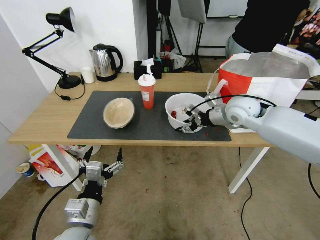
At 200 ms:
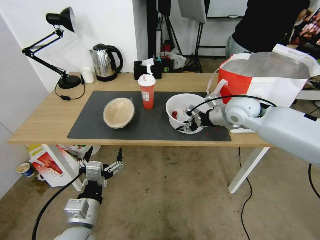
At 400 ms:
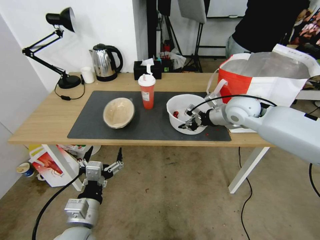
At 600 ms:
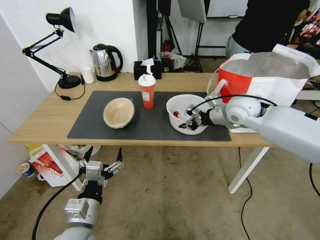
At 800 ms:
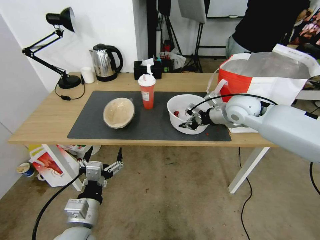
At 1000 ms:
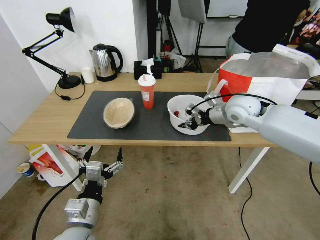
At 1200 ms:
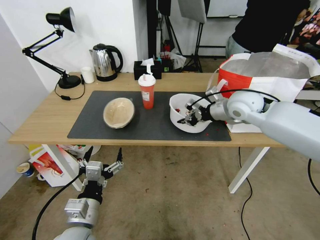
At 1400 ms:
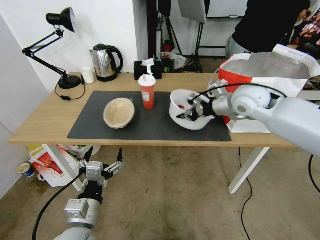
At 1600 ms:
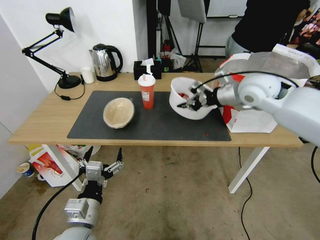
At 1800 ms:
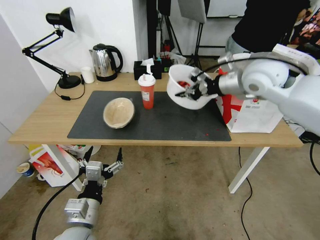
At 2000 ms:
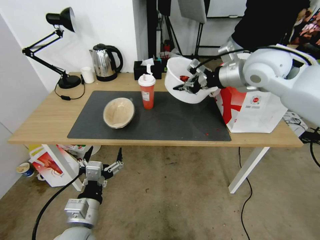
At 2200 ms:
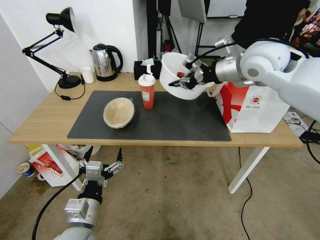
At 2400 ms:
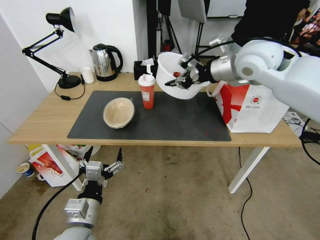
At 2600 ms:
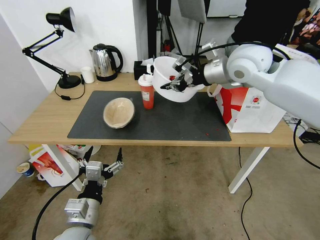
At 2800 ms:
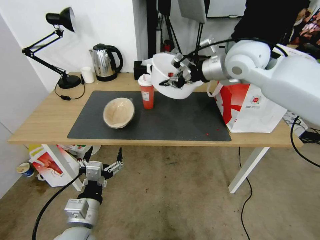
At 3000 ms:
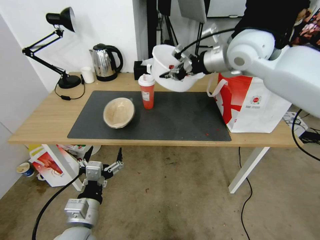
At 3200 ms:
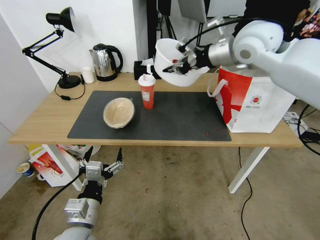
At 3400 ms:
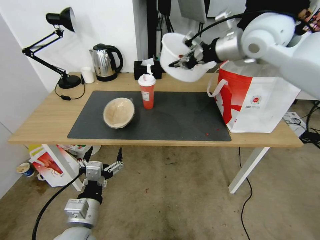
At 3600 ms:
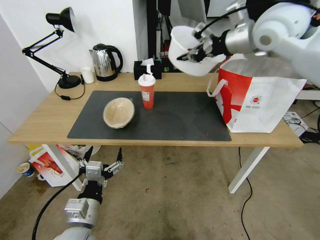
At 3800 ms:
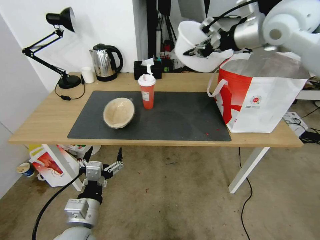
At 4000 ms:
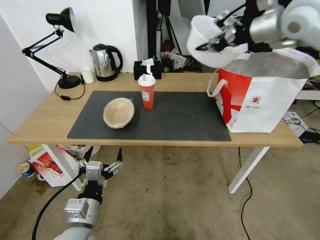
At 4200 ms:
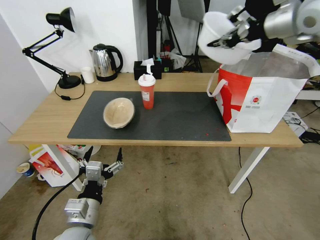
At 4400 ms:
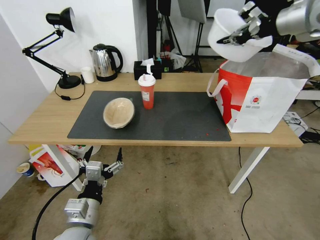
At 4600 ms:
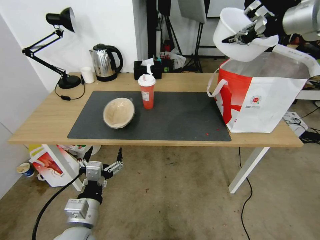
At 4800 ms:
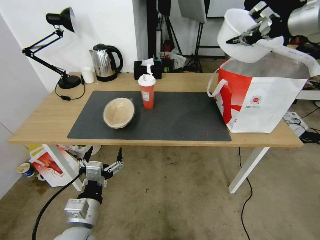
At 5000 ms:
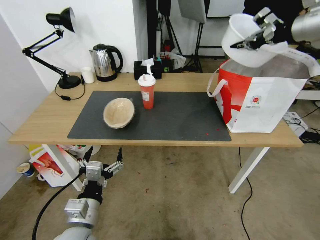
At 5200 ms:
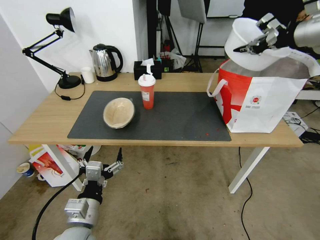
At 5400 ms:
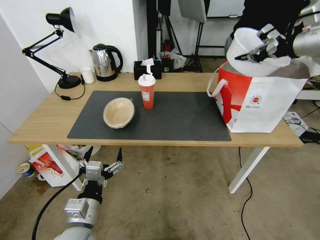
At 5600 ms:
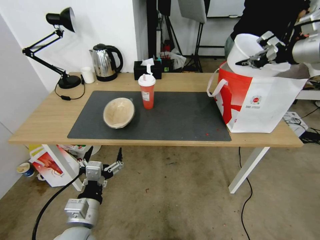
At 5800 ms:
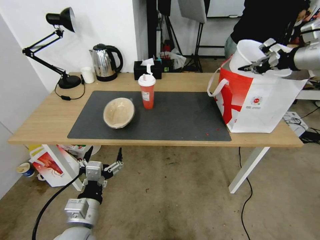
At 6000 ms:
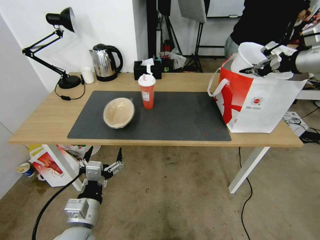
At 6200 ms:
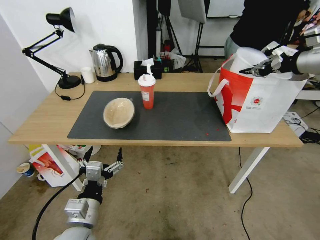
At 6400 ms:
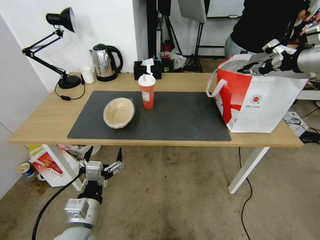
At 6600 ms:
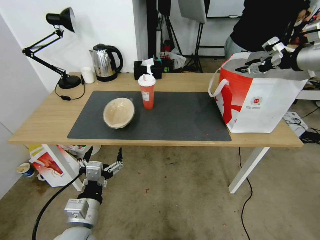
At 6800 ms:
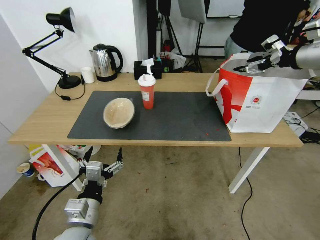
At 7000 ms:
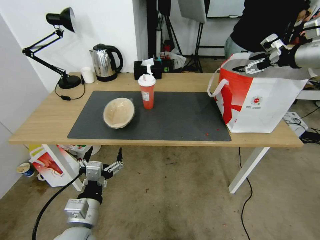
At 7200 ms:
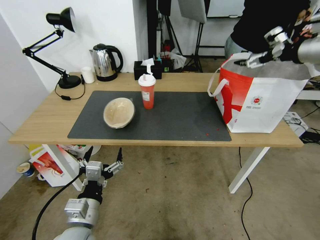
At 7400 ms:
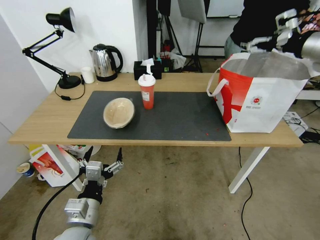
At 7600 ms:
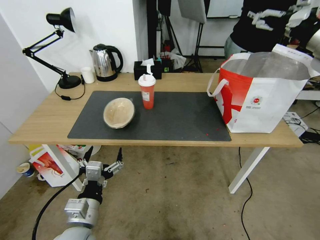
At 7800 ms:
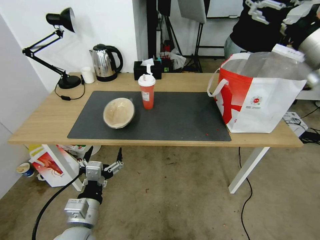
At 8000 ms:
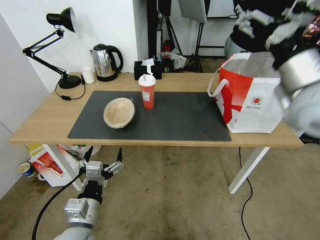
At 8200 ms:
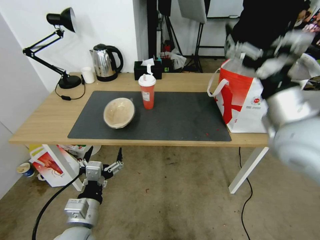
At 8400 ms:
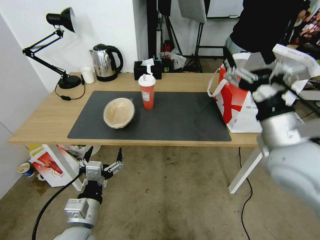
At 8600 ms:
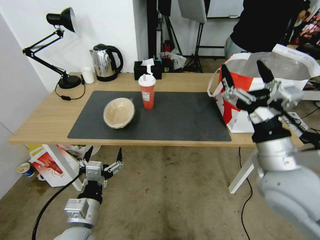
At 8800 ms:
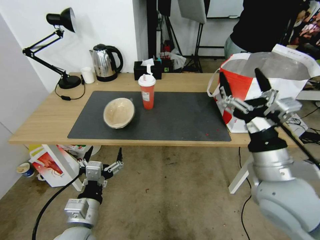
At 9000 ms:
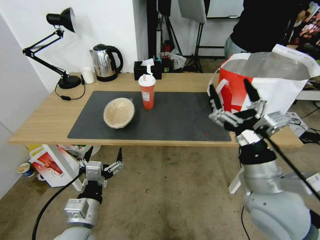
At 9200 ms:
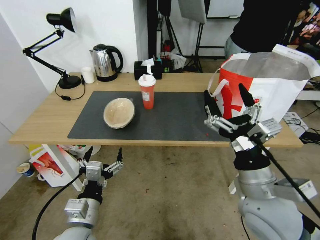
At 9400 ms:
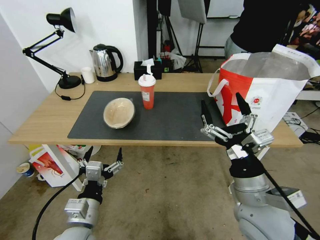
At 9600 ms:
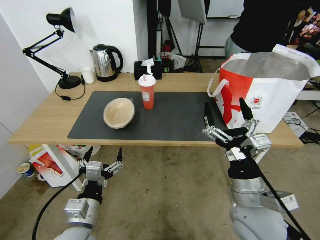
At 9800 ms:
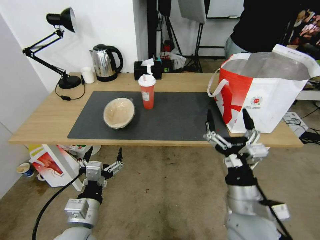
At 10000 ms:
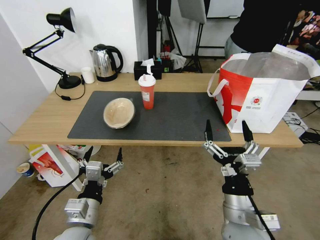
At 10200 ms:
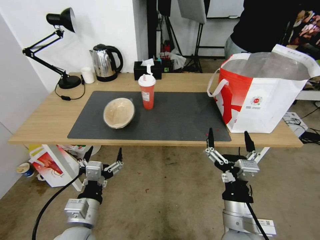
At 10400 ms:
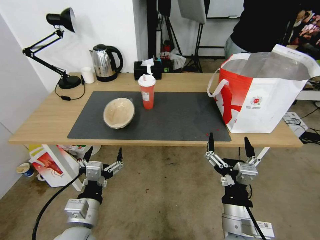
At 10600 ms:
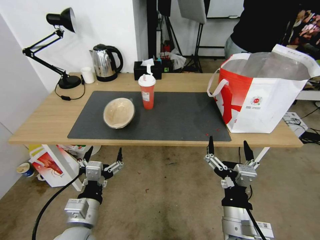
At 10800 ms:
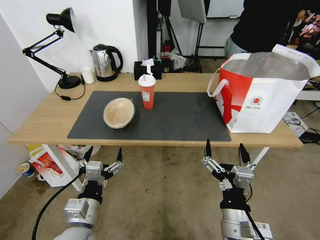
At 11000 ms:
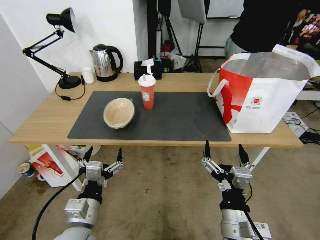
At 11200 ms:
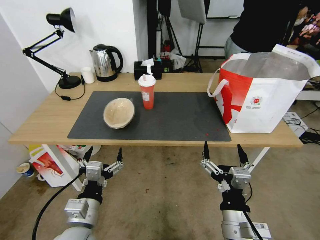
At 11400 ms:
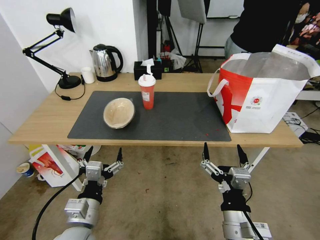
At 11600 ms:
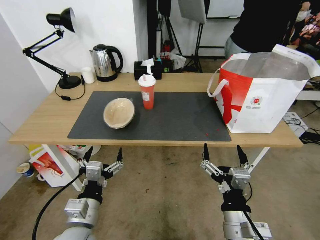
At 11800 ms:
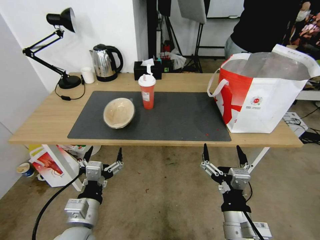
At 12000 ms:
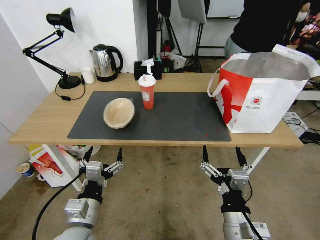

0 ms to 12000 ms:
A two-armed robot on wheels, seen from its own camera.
Task of the whole recording: Pick up the trash from the table and place it into the takeout bag.
0 ms to 1600 ms: The right gripper is displaced upward by roughly 10 cm, and closes its fingers.
1600 ms to 3000 ms: The right gripper heads upward and to the left, covering some 10 cm.
3000 ms to 4400 ms: The right gripper moves to the right and upward, approximately 20 cm.
4400 ms to 6000 ms: The right gripper moves downward and to the right, roughly 10 cm.
6000 ms to 7600 ms: The right gripper heads backward, covering some 5 cm, and opens up.
7600 ms to 9000 ms: The right gripper is displaced downward, backward and to the left by approximately 35 cm.
9000 ms to 10400 ms: The right gripper is displaced downward, backward and to the left by roughly 15 cm.
10400 ms to 12000 ms: The grippers stay close to where they were, moving slightly.

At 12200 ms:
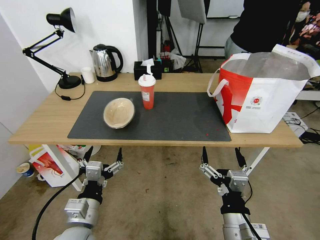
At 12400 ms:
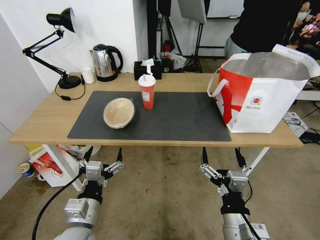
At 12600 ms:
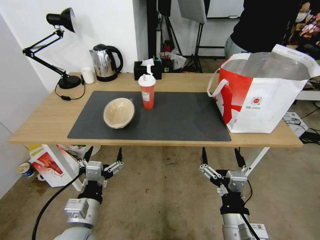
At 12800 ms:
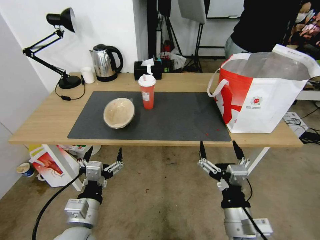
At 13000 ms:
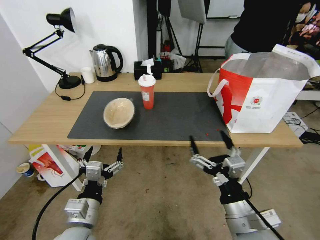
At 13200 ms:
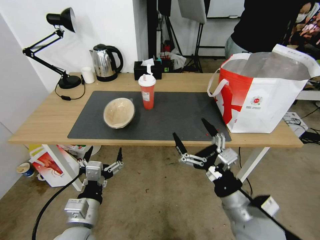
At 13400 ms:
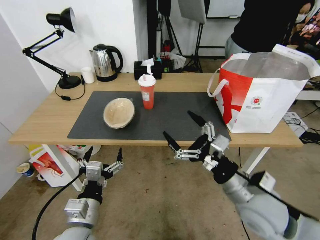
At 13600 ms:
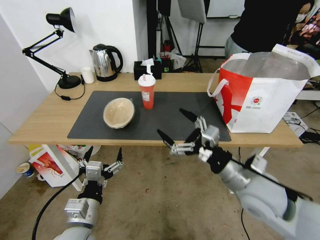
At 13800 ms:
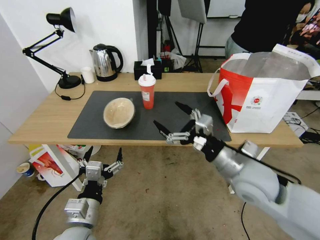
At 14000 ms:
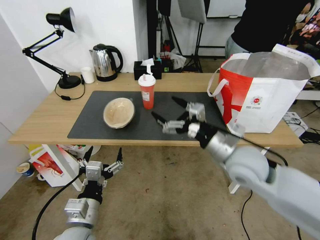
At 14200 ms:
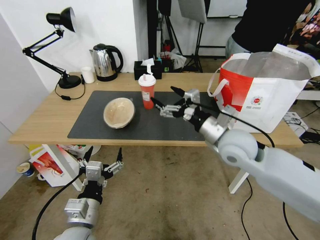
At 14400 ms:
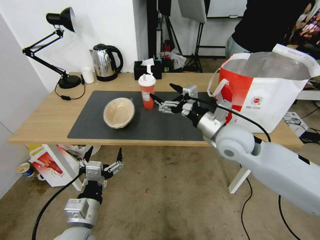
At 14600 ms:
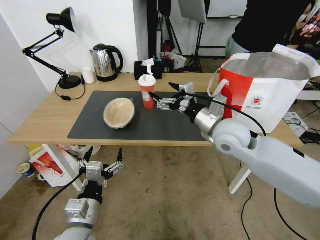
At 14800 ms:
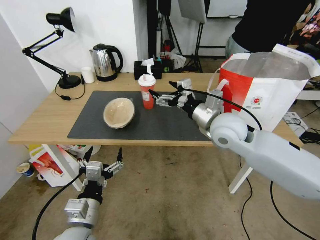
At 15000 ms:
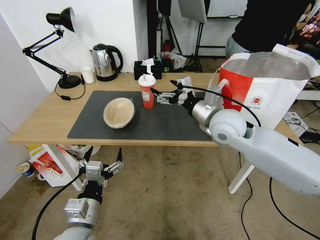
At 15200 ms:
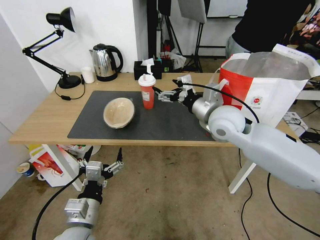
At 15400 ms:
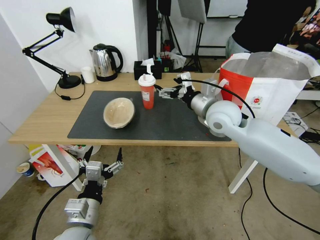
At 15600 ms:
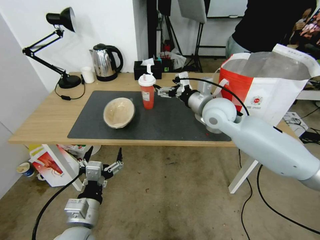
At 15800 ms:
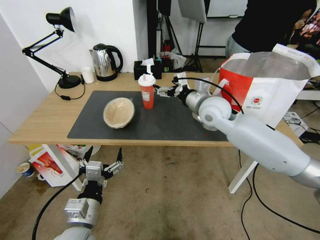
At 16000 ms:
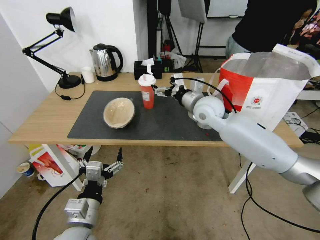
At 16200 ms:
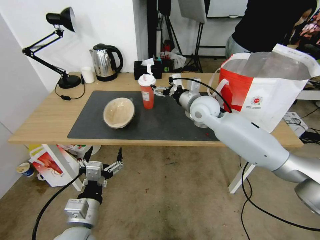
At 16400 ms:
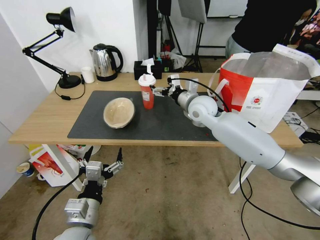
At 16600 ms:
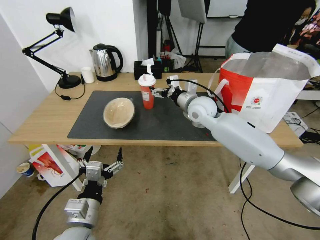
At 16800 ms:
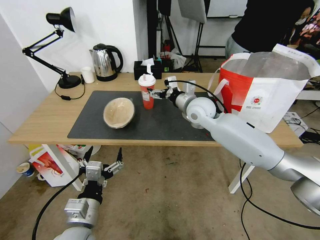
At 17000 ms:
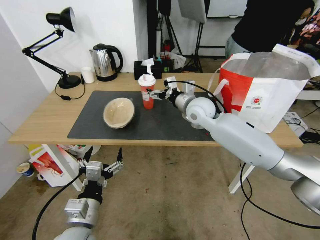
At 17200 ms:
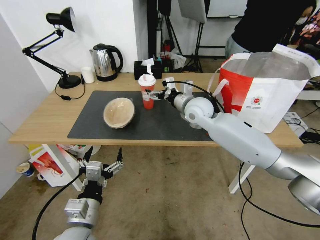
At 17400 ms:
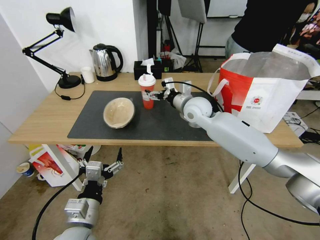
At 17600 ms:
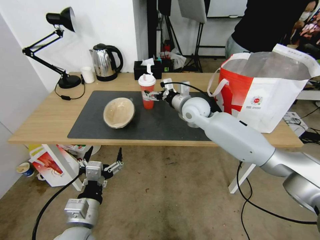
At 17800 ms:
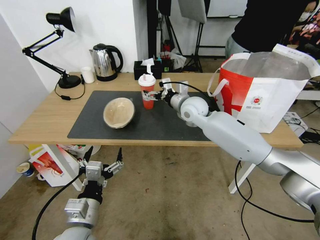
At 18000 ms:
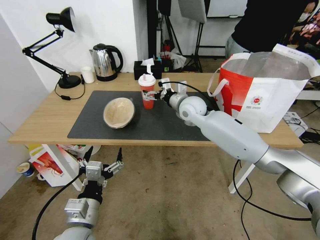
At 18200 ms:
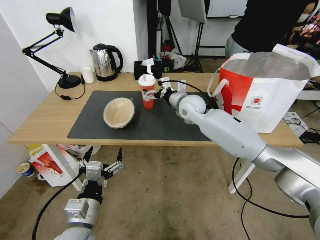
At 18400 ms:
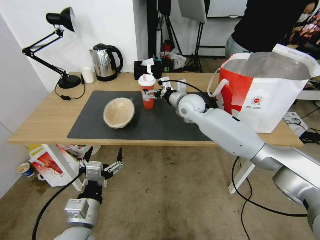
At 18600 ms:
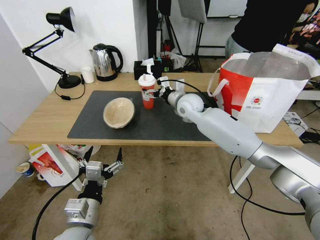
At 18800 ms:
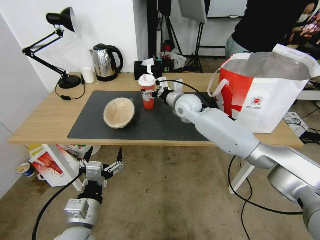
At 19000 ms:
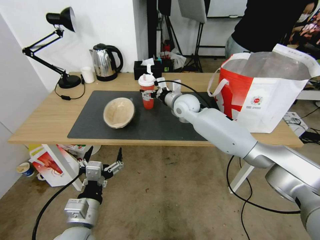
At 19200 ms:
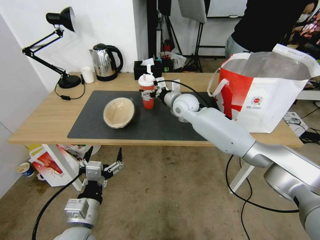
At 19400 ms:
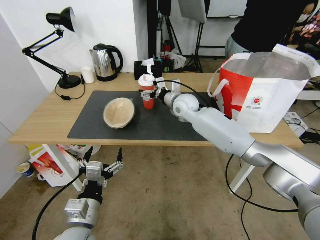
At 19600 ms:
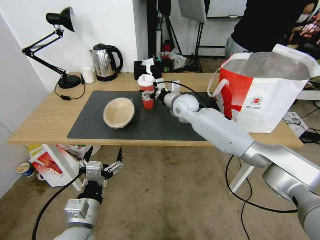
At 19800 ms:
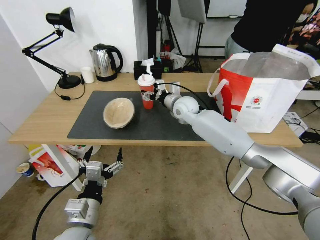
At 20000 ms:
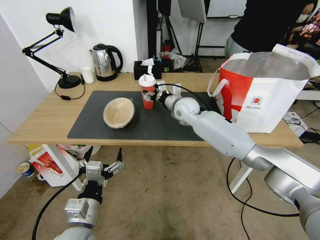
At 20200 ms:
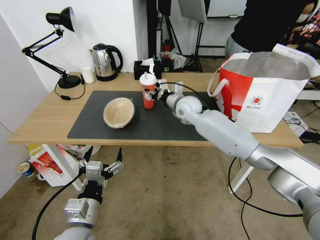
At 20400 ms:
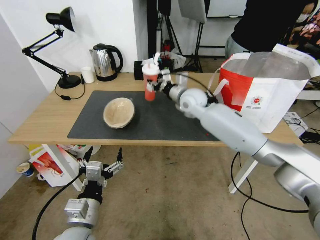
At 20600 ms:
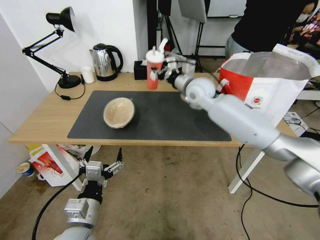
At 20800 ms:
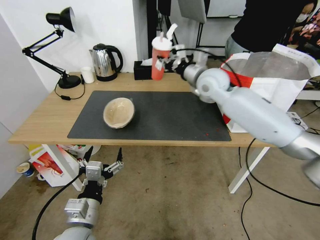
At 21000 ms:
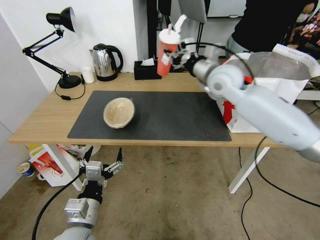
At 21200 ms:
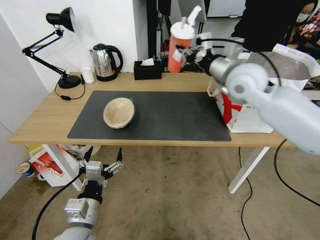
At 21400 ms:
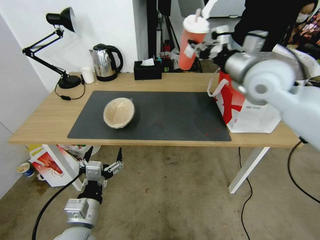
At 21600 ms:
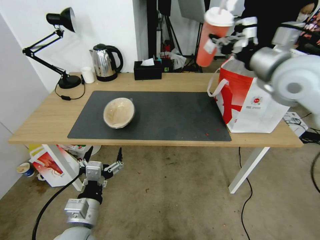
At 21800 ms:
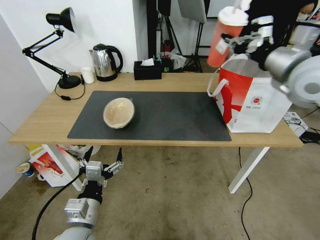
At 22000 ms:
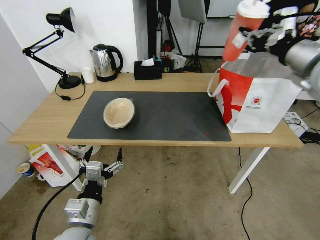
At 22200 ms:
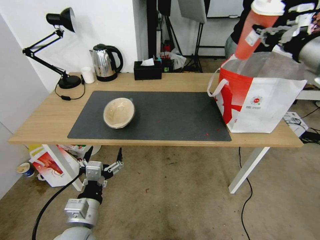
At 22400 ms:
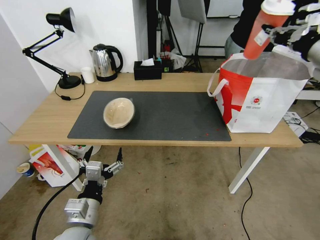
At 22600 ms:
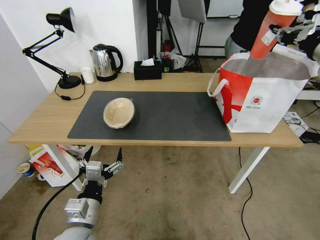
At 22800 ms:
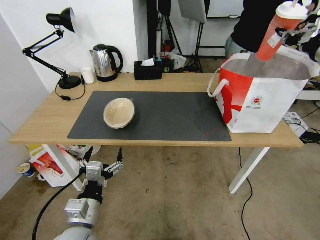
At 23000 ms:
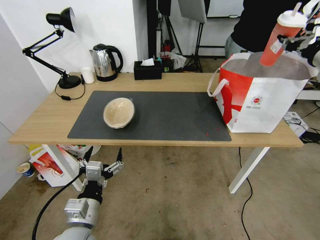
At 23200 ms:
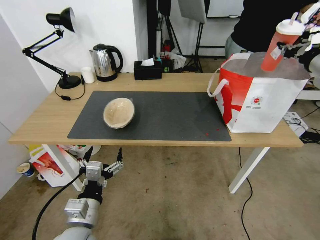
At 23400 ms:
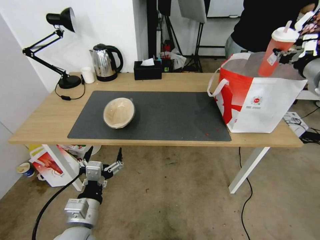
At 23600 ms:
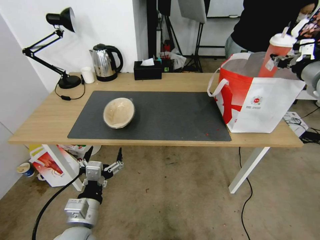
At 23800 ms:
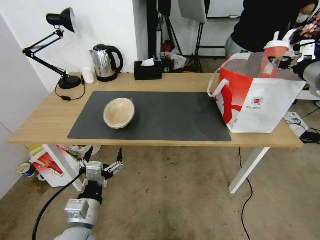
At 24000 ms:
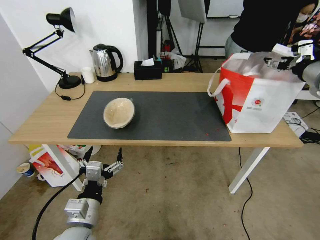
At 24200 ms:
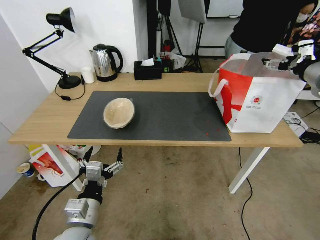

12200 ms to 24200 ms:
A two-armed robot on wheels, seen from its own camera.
Task of the whole recording: Pick up the trash from the table and place it into the takeout bag.
12200 ms to 13800 ms: The right gripper moves forward and upward, roughly 20 cm.
13800 ms to 15200 ms: The right gripper moves forward and upward, some 15 cm.
15200 ms to 16600 ms: The right gripper travels forward by some 10 cm.
16600 ms to 18200 ms: There are only small adjustments of the grippers.
18200 ms to 19800 ms: The right gripper closes its fingers.
19800 ms to 21200 ms: The right gripper is displaced upward, to the right and backward by about 25 cm, and closes up.
21200 ms to 22600 ms: The right gripper moves to the right, roughly 20 cm.
22600 ms to 24200 ms: The right gripper is displaced downward by approximately 5 cm, and opens its fingers.
